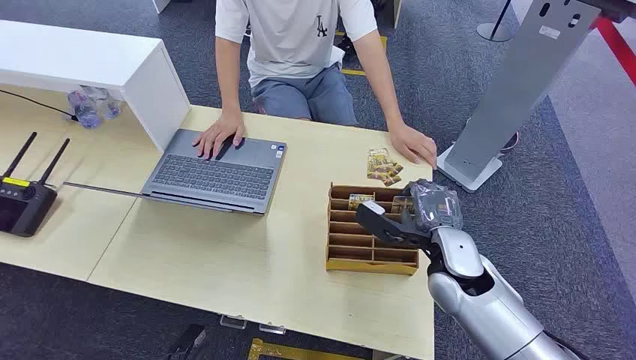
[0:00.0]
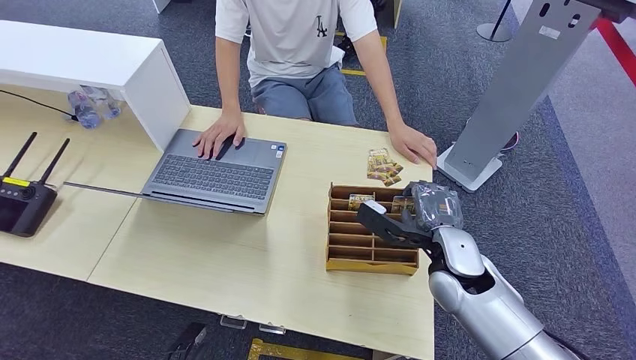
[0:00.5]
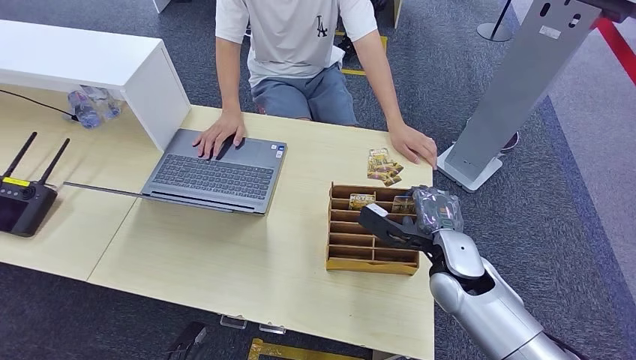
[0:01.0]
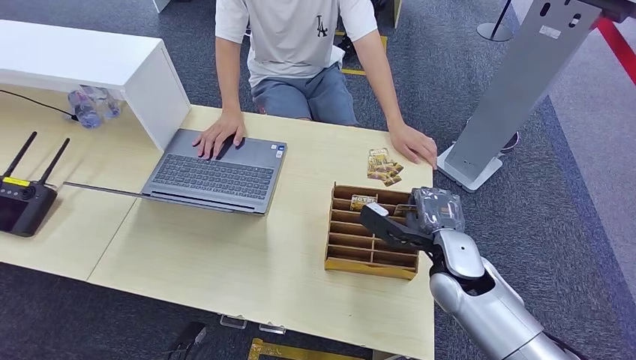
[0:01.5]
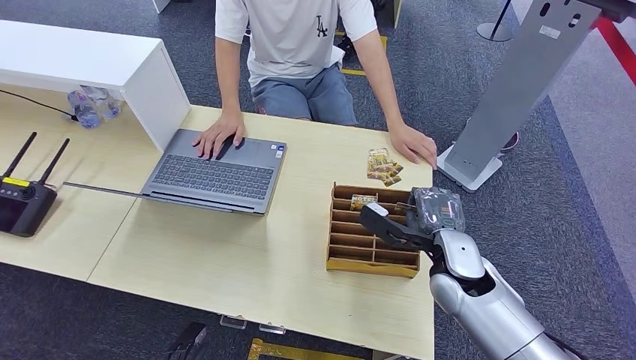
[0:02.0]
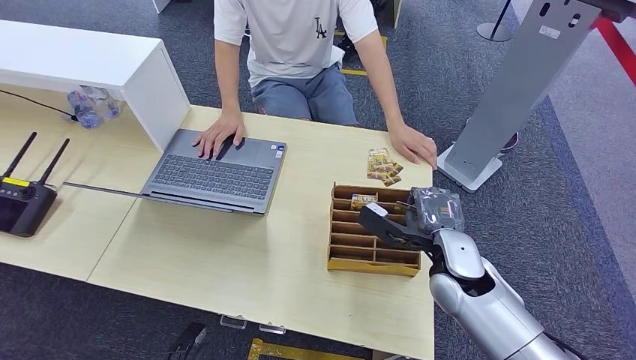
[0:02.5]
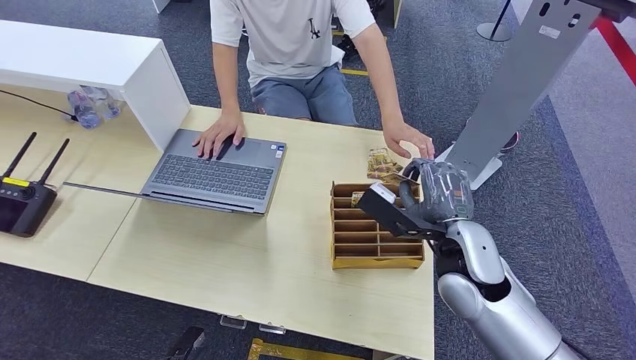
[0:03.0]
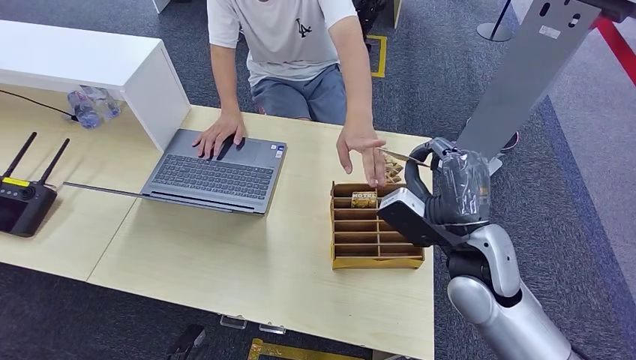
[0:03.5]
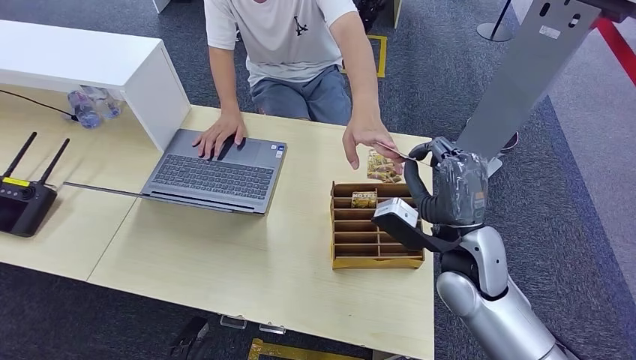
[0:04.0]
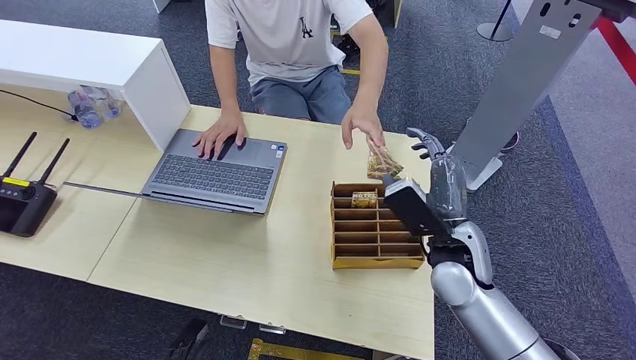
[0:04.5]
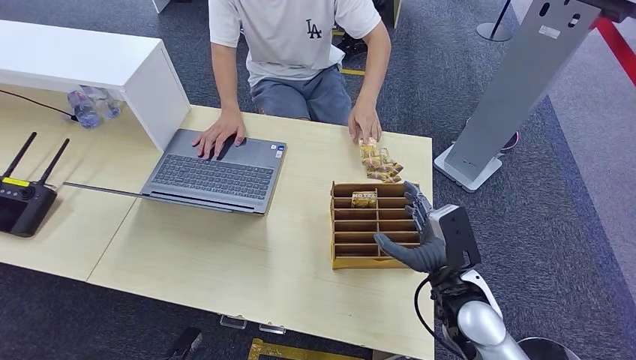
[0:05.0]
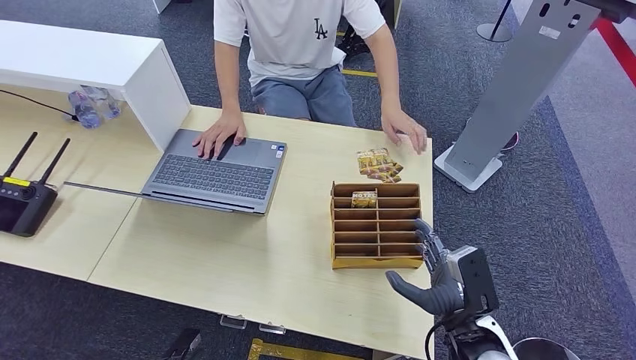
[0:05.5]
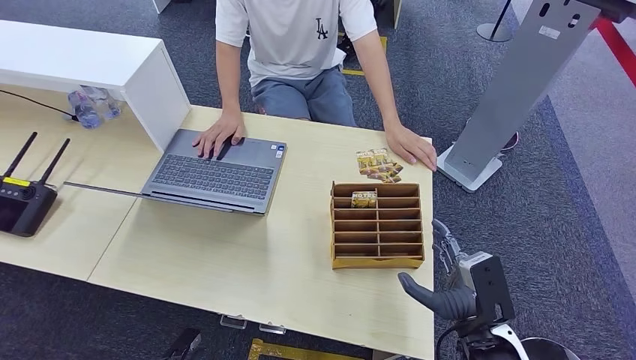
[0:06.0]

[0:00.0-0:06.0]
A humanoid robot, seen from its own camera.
Step, 0:00.0 to 0:02.5: Pick up the key card from the card box.
Step, 0:03.0 to 0:06.0: Hand the key card to the target.
0:02.0 to 0:04.0: The right hand shifts approximately 5 cm upward.
0:04.0 to 0:06.0: The right hand heads backward, downward and to the right, covering some 15 cm.
